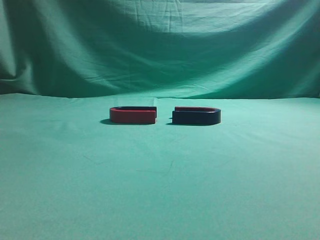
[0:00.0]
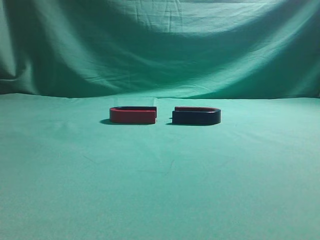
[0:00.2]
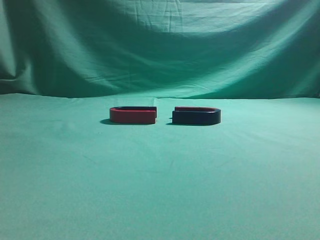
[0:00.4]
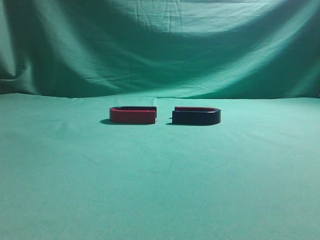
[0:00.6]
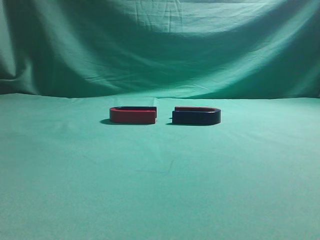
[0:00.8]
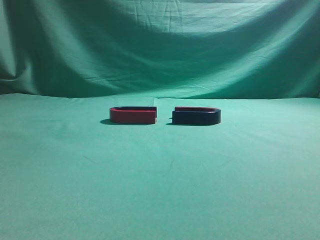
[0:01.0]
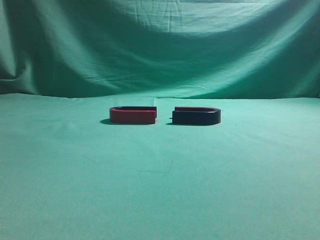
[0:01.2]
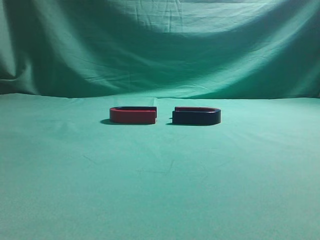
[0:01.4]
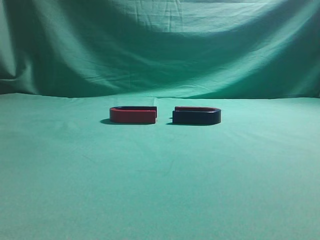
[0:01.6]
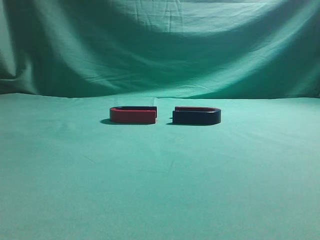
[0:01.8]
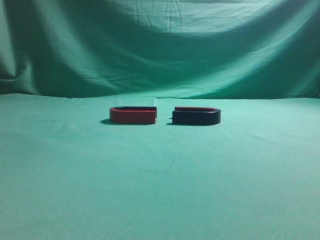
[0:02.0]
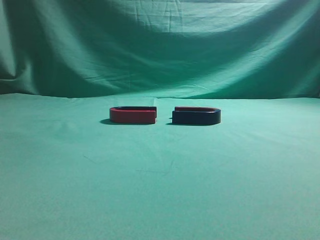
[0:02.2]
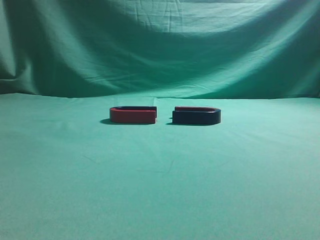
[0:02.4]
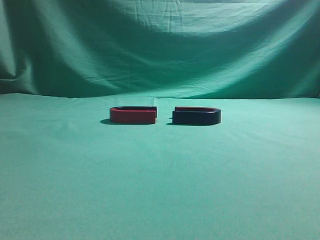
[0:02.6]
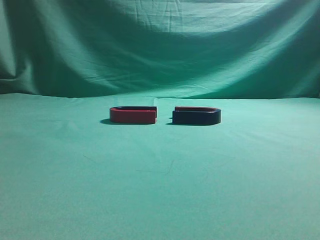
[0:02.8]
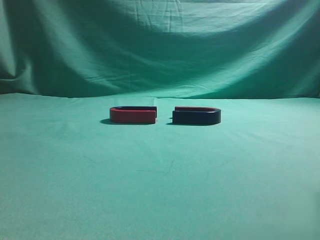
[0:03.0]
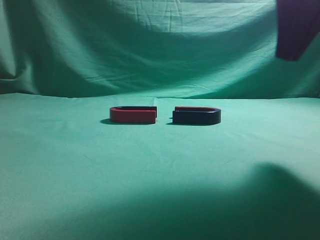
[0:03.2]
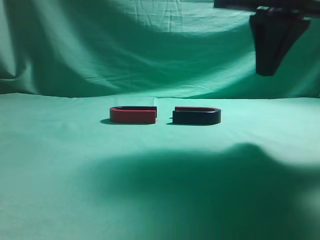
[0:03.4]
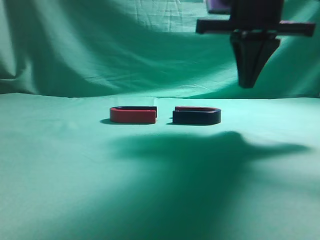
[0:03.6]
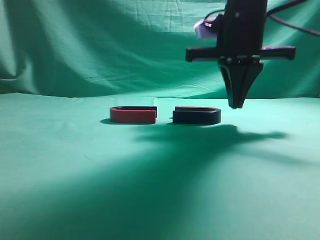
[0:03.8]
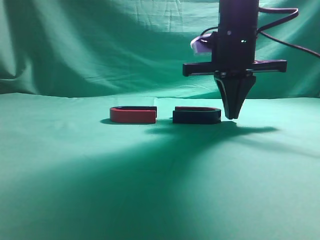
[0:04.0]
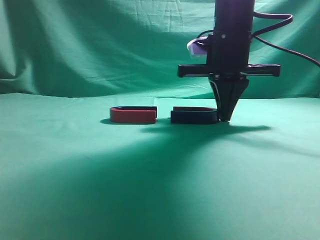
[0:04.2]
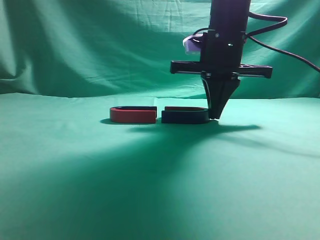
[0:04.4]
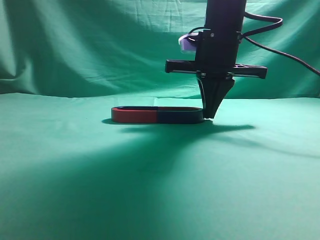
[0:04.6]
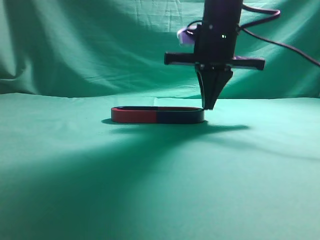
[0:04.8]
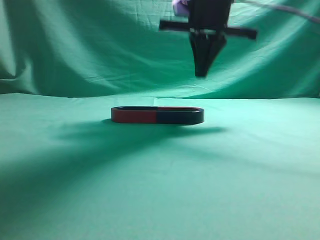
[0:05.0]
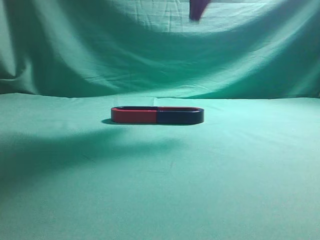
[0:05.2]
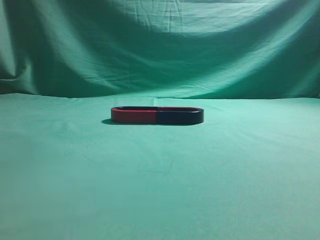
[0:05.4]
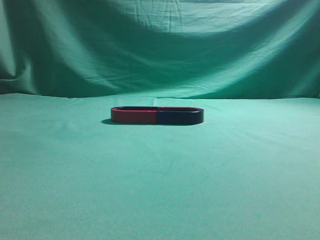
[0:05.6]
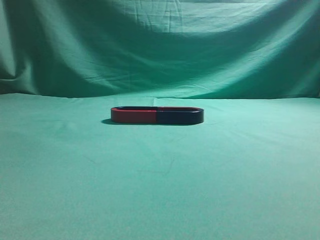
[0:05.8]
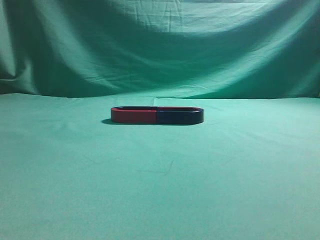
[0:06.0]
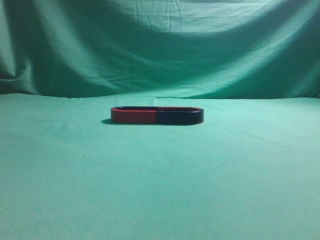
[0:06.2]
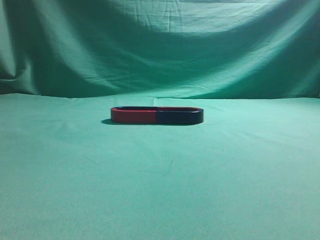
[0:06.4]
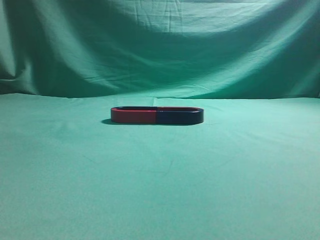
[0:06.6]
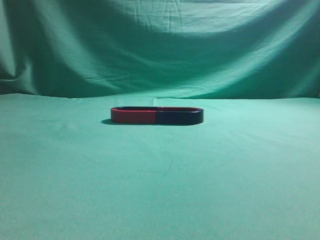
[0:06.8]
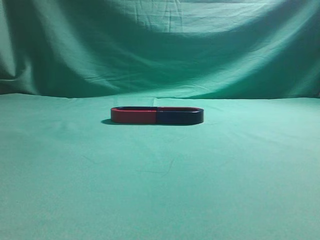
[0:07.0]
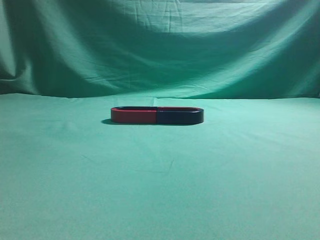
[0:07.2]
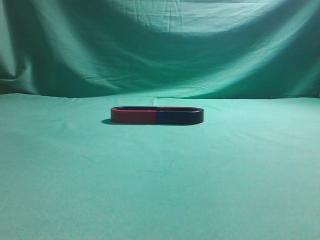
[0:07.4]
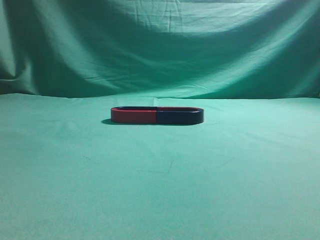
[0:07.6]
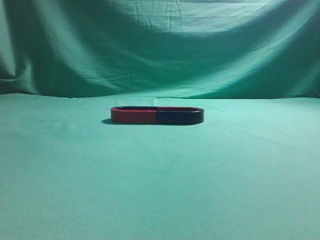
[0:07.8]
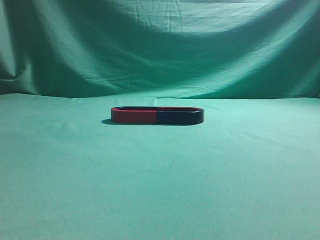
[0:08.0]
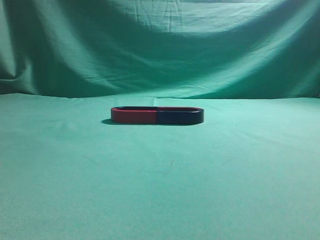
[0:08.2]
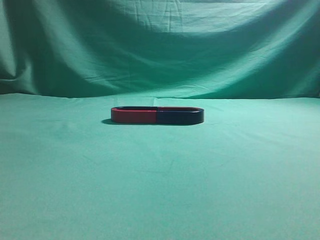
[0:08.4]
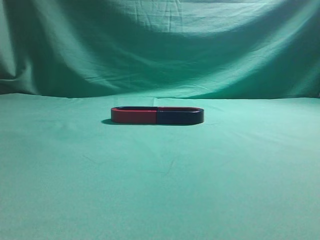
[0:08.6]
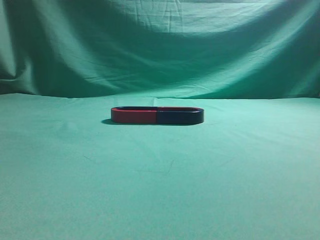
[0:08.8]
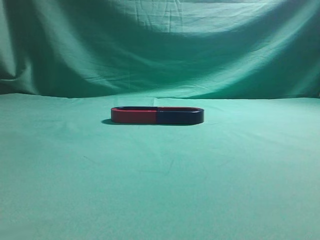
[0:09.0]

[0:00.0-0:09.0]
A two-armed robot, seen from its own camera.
Task of the whole recording: push the magnet on the table from its original position to another position.
Step, 0:00.0 to 0:04.8: Push the magnet on the right to connect the magnet on the left.
0:03.0 to 0:04.4: The right gripper shifts approximately 25 cm forward, to the left and downward.
0:04.4 to 0:06.0: The right gripper goes roughly 35 cm upward and backward.
